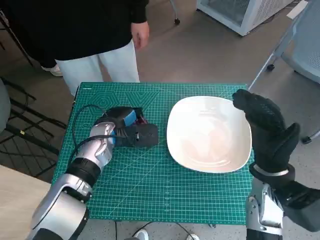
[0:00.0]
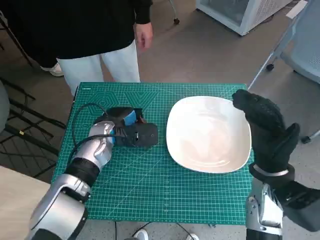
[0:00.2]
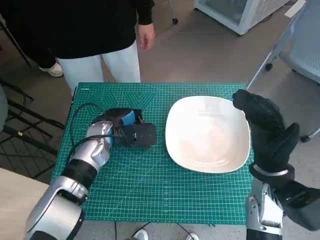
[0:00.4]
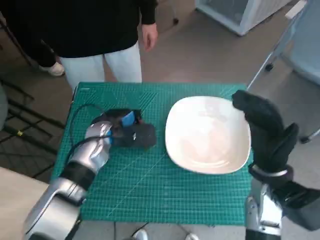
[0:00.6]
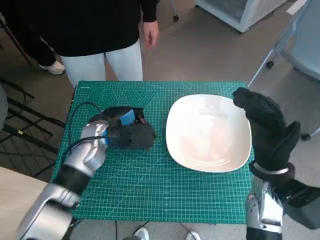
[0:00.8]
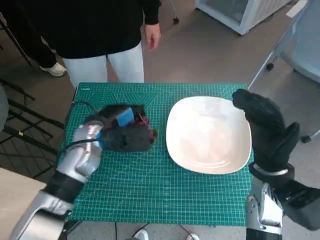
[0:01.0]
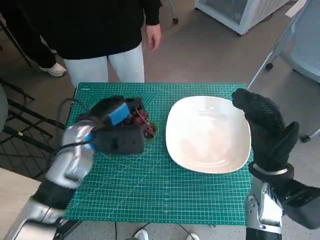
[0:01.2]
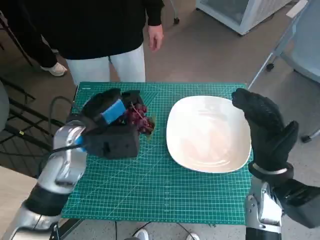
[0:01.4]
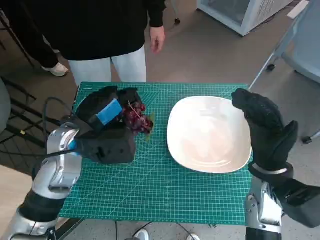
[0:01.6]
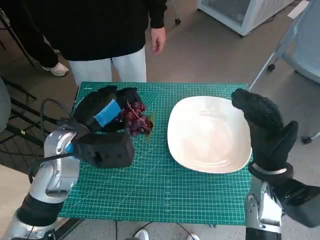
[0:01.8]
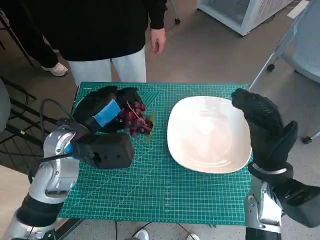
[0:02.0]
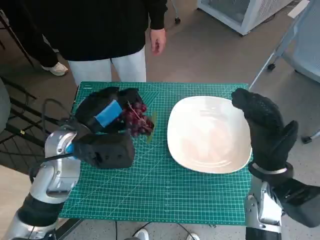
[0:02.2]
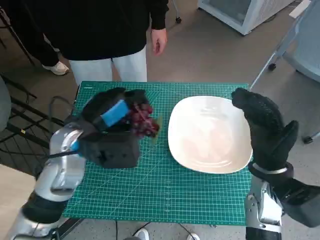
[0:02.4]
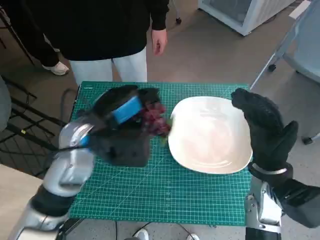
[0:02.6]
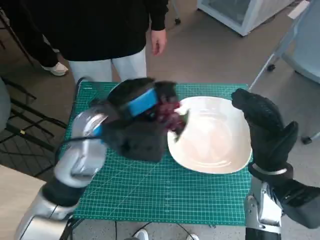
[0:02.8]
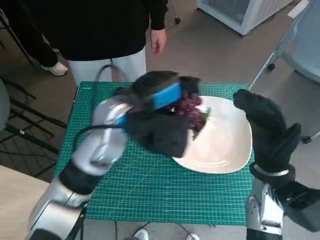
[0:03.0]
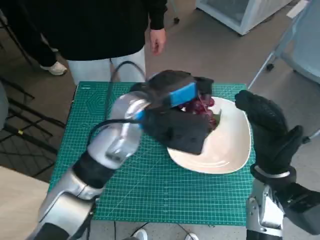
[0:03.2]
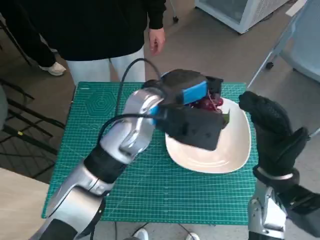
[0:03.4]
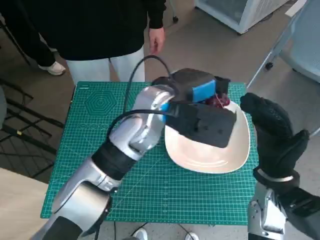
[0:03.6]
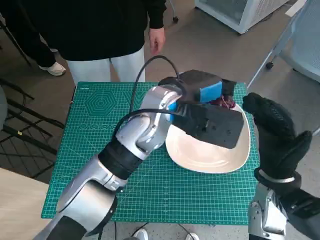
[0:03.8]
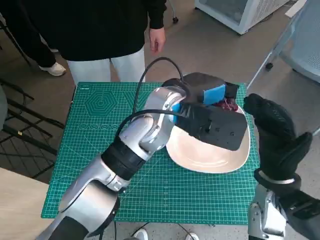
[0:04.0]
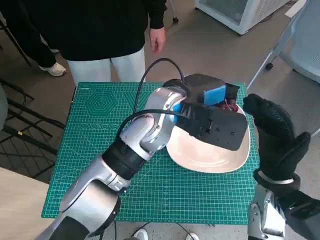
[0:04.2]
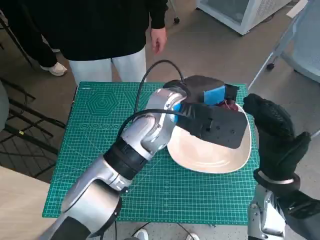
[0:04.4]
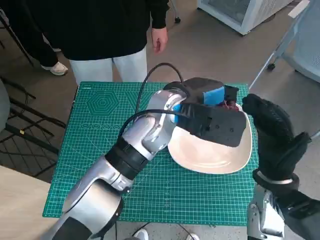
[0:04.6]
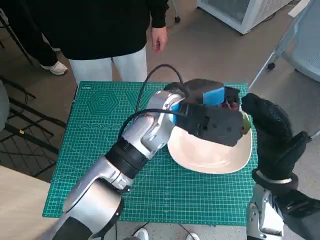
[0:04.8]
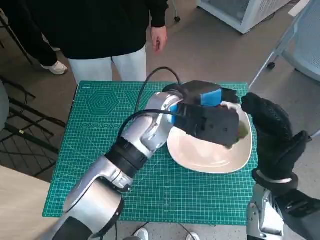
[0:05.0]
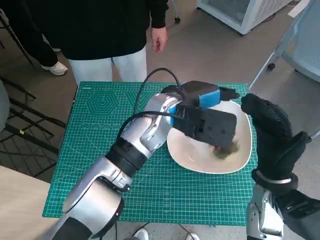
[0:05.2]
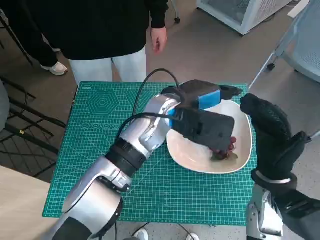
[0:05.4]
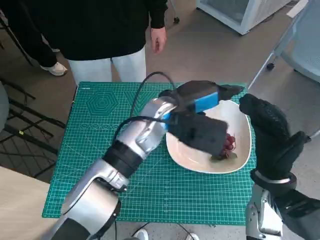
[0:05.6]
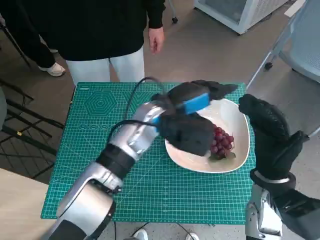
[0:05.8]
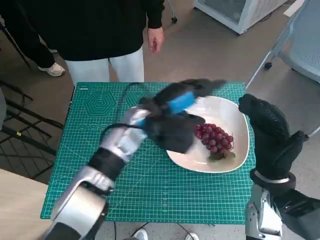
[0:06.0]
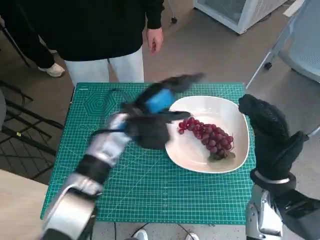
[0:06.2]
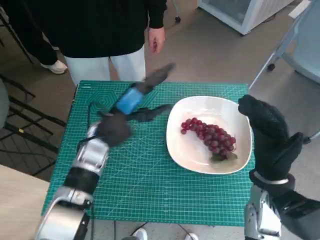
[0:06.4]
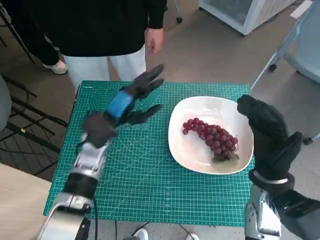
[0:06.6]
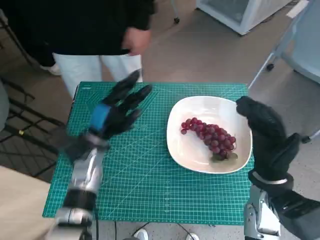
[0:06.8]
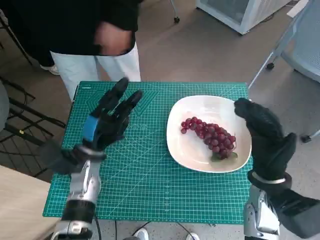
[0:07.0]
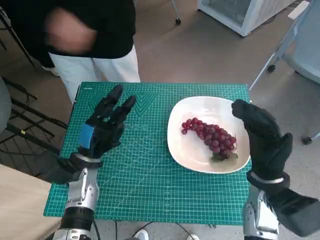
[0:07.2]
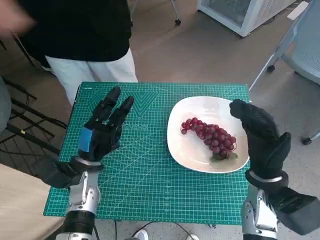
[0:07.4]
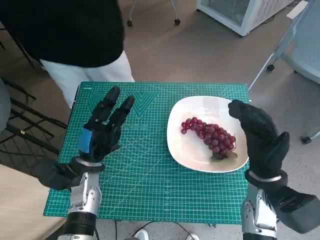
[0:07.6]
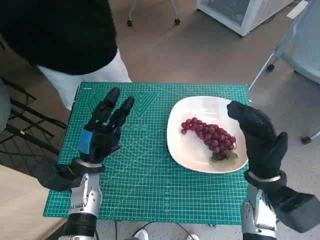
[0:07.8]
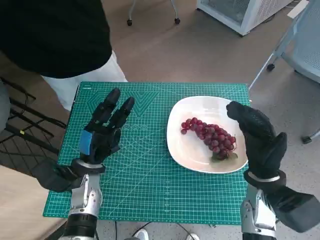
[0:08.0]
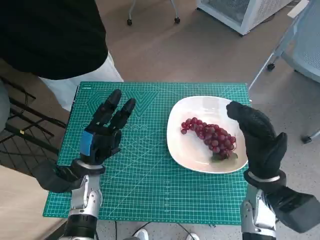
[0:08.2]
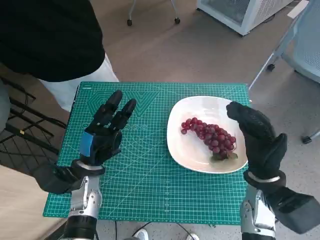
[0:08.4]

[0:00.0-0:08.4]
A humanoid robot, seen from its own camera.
Task of the whole recording: Pick up the grapes and put them on the plate.
Step, 0:00.0 to 0:05.4: Place the grapes in the plate with left hand.
0:00.0 to 0:01.4: The left hand goes about 10 cm upward and backward.
0:01.4 to 0:02.8: The left hand ends up about 5 cm from where it was.
0:02.8 to 0:04.2: The left hand moves to the right, roughly 10 cm.
0:04.2 to 0:05.6: There are only small adjustments of the hands.
0:05.6 to 0:07.0: The left hand moves to the left and downward, about 20 cm.
0:07.0 to 0:08.4: The hands make only small movements.

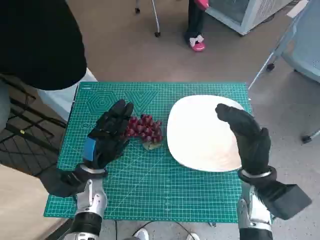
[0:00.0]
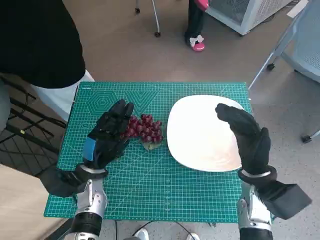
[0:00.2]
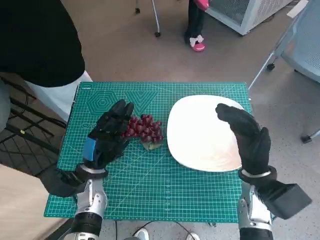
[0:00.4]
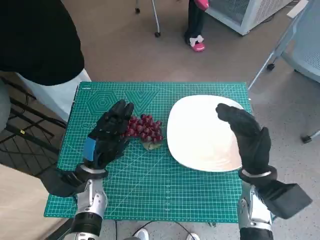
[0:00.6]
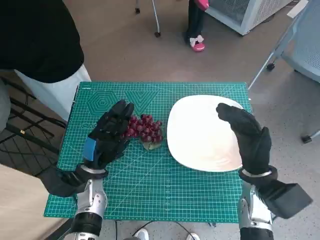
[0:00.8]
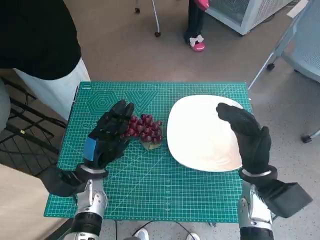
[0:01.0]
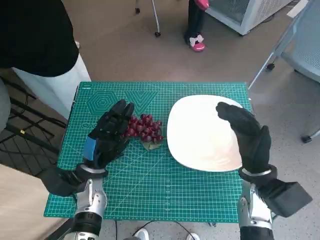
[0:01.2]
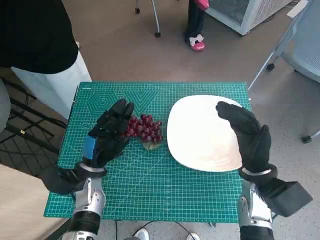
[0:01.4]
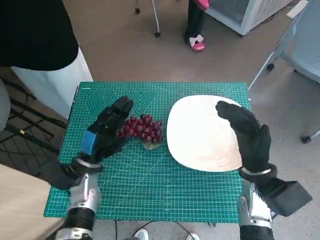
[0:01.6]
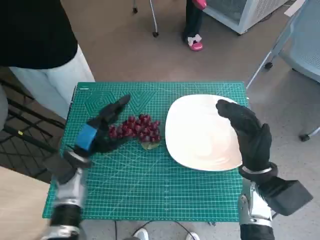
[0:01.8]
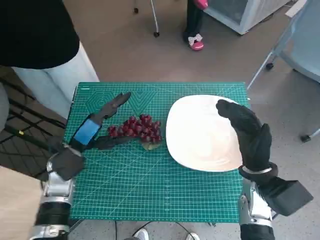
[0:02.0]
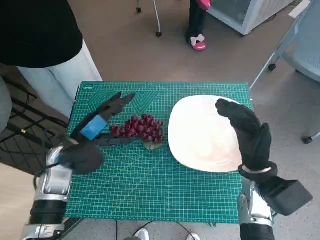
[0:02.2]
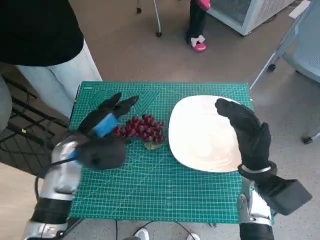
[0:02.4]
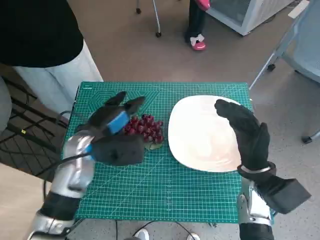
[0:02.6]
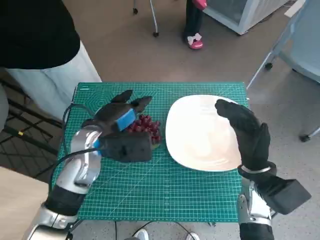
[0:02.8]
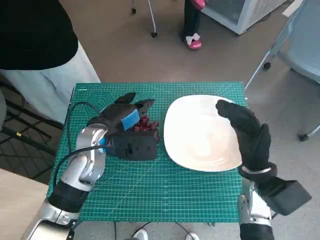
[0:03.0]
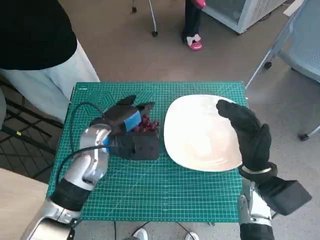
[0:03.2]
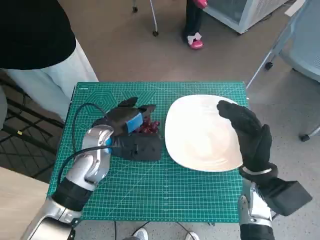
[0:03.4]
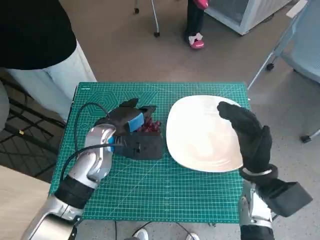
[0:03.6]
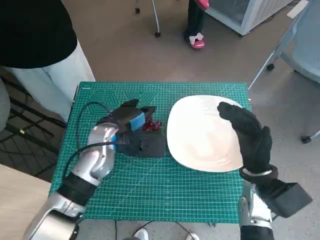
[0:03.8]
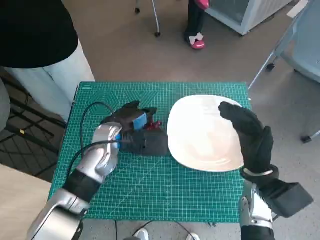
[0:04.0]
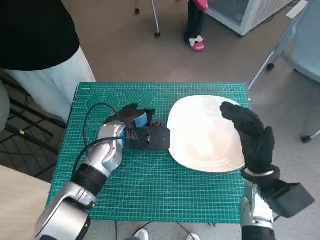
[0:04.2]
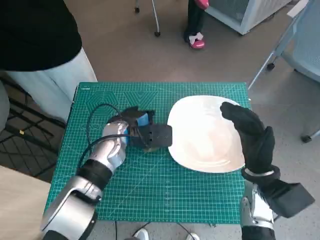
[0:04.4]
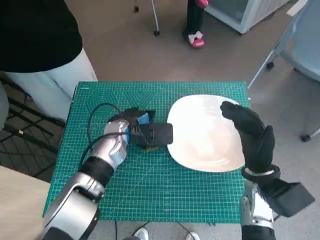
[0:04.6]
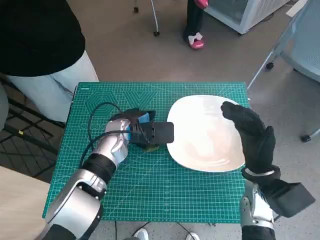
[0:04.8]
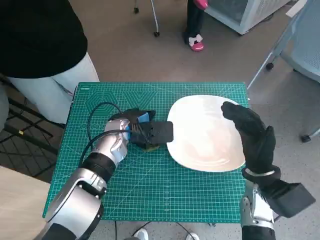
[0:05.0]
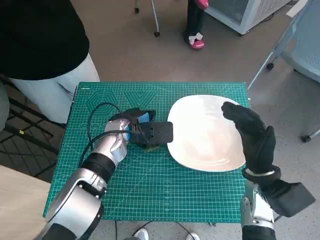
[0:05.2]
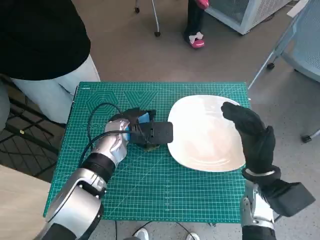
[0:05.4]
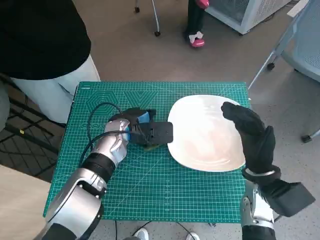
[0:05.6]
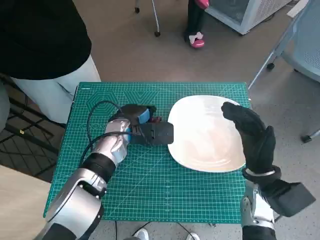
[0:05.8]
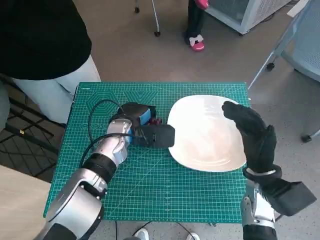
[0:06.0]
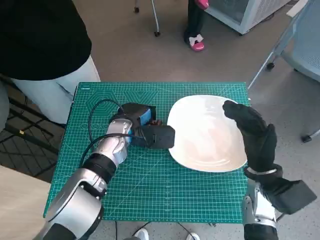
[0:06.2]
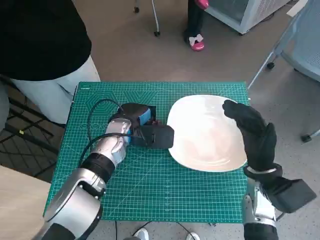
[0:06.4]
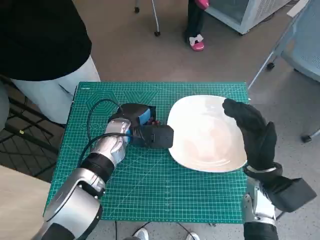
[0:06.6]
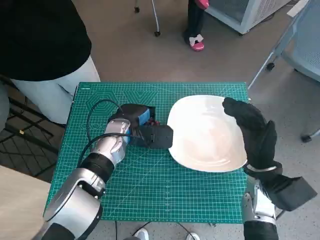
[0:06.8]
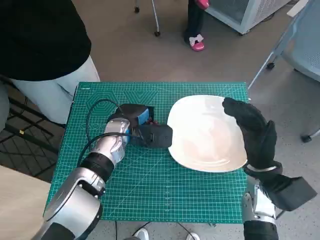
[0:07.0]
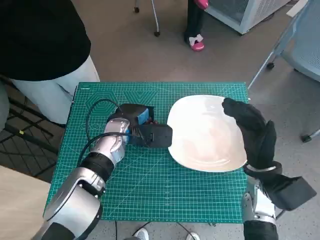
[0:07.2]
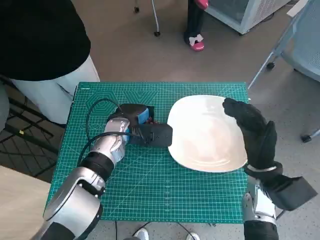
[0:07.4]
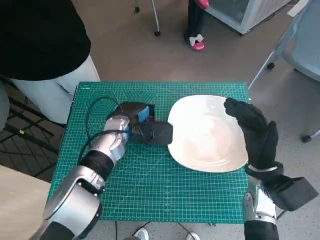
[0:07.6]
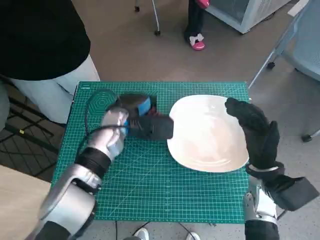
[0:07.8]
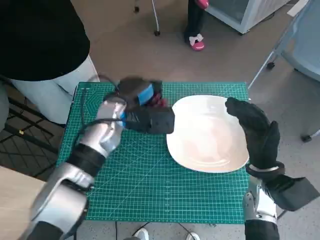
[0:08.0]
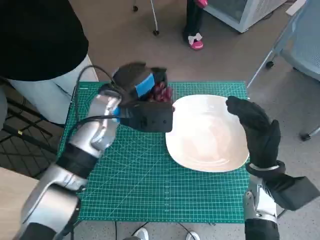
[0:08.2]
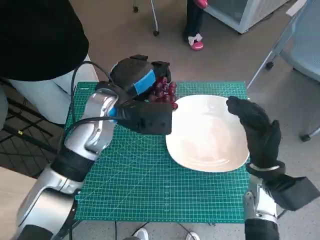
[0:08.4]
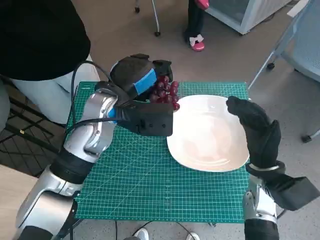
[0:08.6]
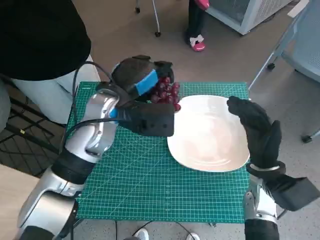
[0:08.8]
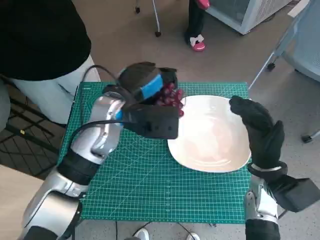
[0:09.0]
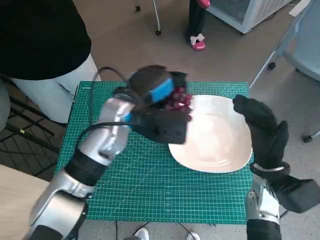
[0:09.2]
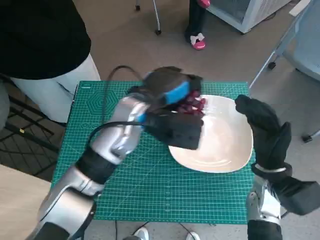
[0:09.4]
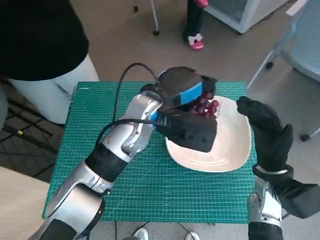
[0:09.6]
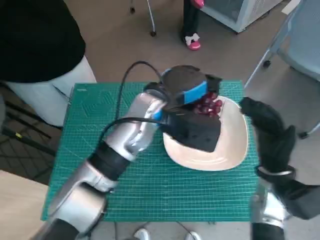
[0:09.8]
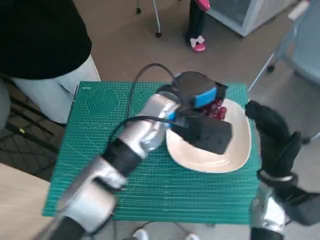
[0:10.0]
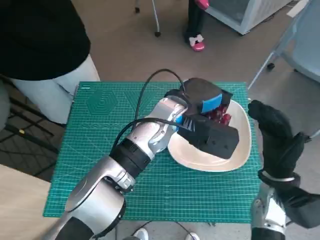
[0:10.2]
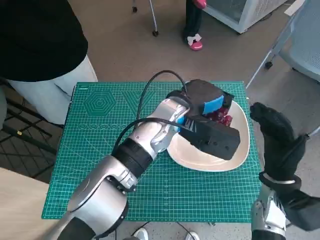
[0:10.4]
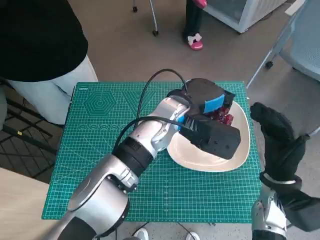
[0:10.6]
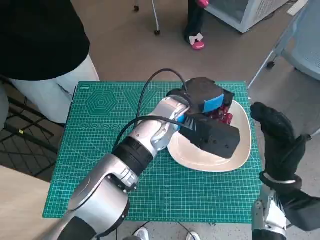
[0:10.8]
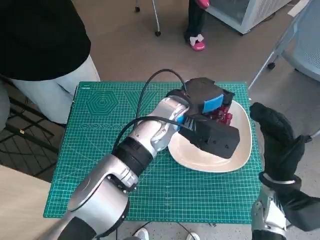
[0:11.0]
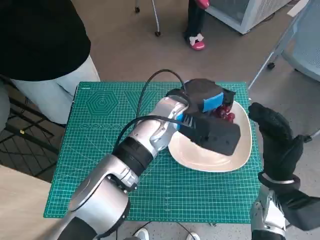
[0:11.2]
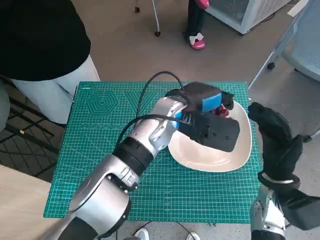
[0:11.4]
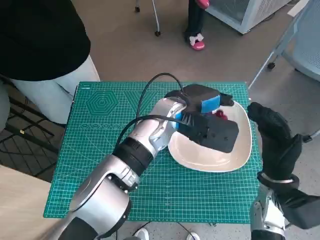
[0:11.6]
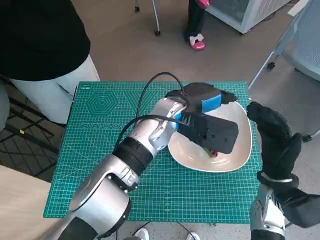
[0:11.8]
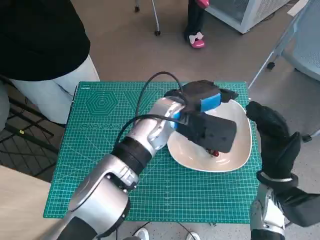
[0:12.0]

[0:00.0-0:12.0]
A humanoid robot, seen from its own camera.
Task of the whole recording: Pick up the grapes and put them on the plate.
Step, 0:00.0 to 0:06.0: Grasp the grapes with left hand.
0:01.6 to 0:03.0: The left hand moves upward and to the right, roughly 10 cm.
0:03.0 to 0:04.4: The left hand moves some 5 cm.
0:04.4 to 0:06.0: There are only small adjustments of the hands.
0:06.0 to 0:07.6: Neither hand changes place.
0:07.6 to 0:09.0: The left hand goes about 10 cm upward.
0:09.0 to 0:10.4: The left hand heads to the right, covering approximately 10 cm.
0:10.4 to 0:12.0: The hands make only small movements.

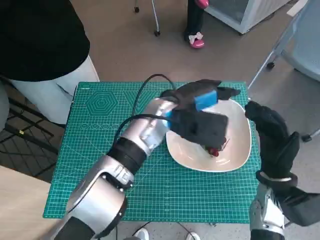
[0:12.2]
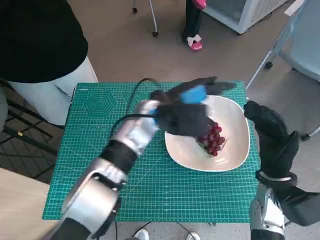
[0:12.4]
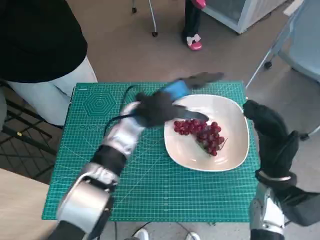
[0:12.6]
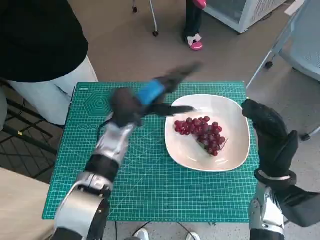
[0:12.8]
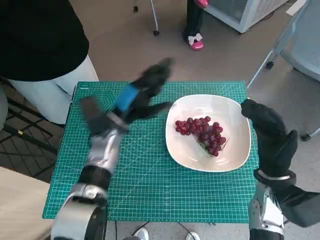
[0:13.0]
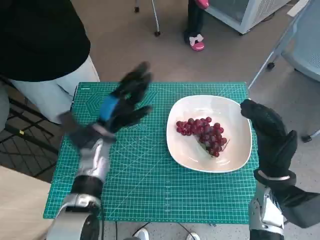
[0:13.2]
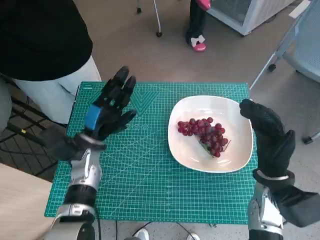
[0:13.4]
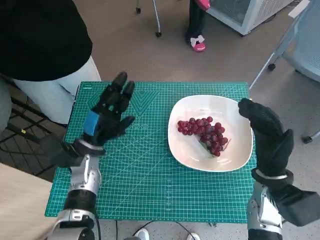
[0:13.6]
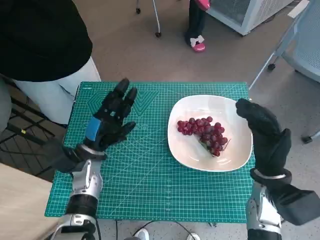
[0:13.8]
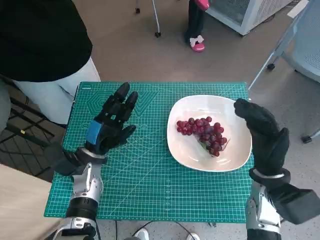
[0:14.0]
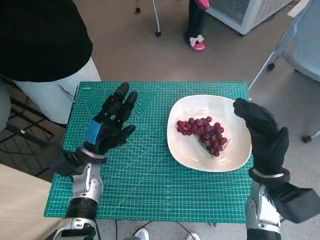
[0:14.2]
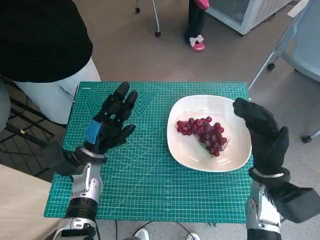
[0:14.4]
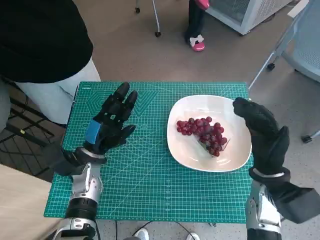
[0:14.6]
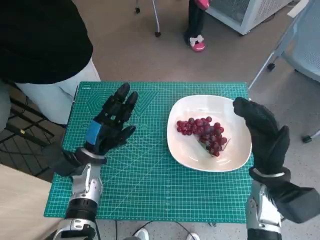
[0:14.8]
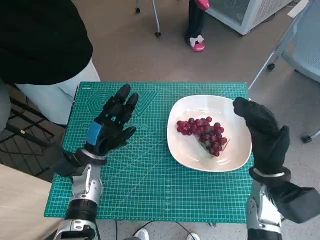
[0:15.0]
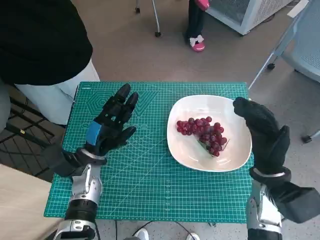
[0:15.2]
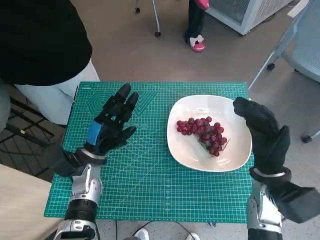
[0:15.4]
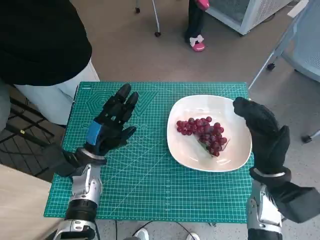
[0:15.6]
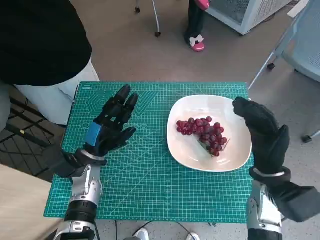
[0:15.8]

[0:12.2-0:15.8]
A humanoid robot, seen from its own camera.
Task of the whole recording: Pick up the grapes and put them on the plate.
0:12.2 to 0:14.0: The left hand goes approximately 20 cm to the left and downward.
0:14.0 to 0:15.8: The two hands keep their place.
